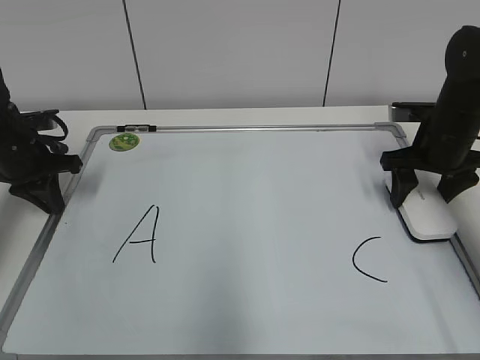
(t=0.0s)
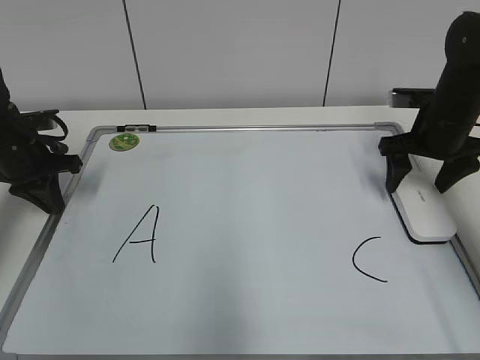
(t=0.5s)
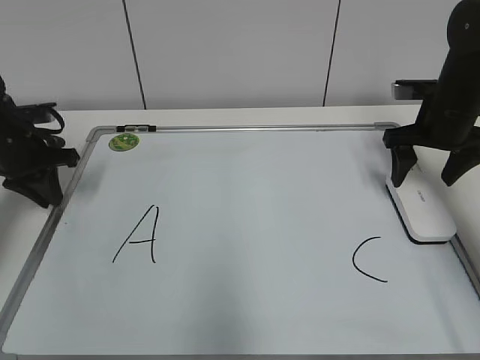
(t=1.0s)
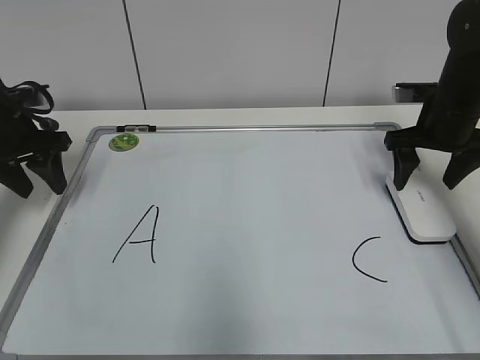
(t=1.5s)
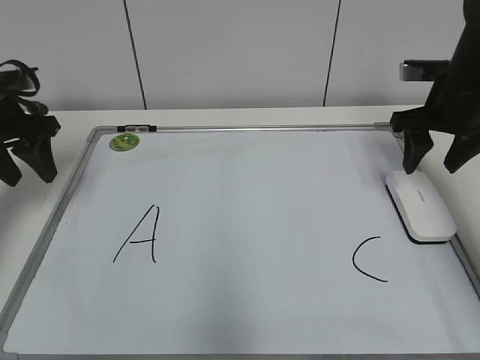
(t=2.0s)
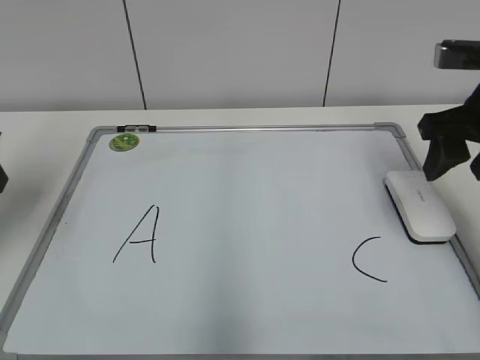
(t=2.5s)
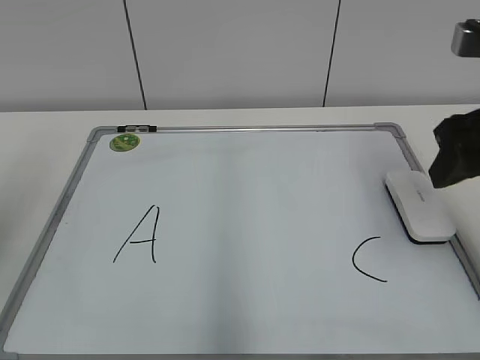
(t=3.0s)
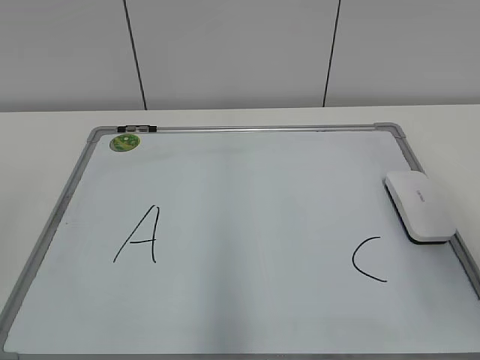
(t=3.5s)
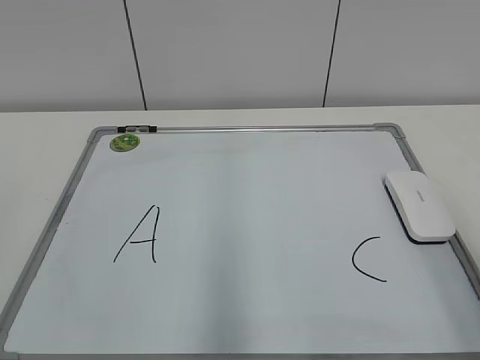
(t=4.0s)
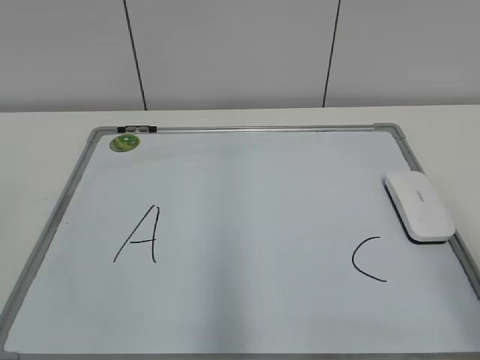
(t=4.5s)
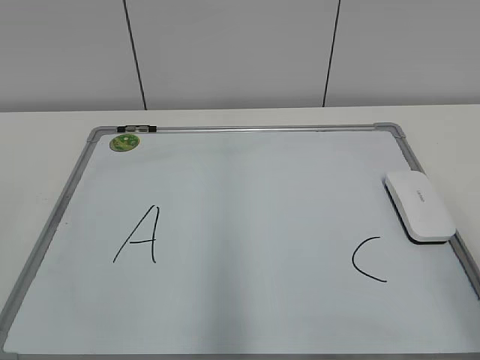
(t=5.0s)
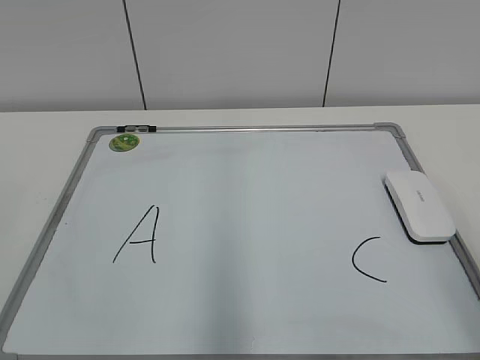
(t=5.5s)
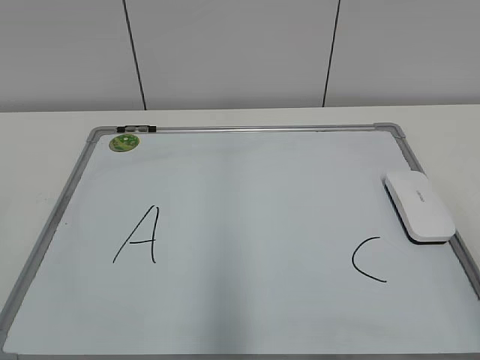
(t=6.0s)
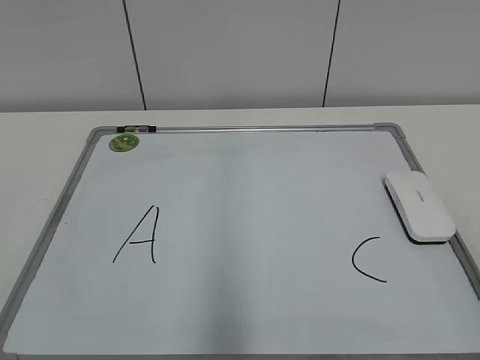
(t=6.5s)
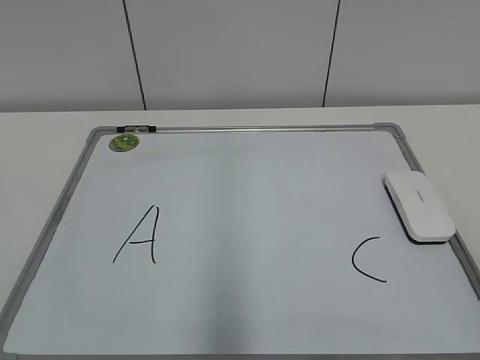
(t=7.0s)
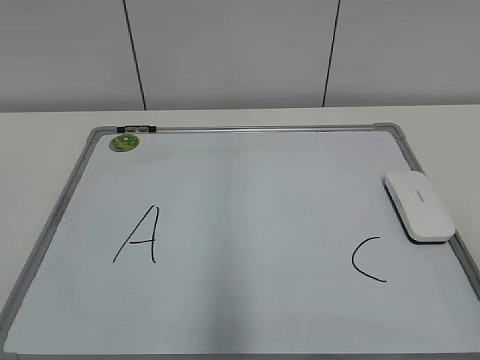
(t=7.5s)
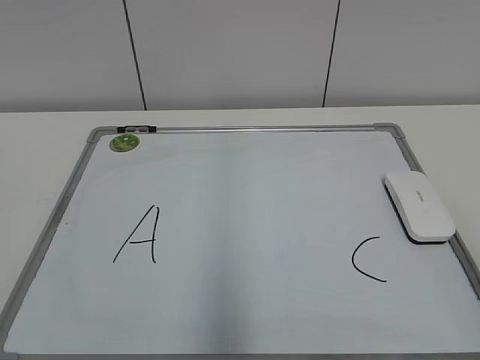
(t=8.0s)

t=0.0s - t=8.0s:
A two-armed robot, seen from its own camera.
Task of the whole recording: pick up the eraser on the blackboard and erase the letter "B".
t=0.0s - t=2.0s: The right gripper opens, then closes once more. Meanwhile the left gripper heads upward, covering roughly 5 cm, and opens its fingers.
t=2.0s - t=4.0s: The two grippers go roughly 35 cm backward.

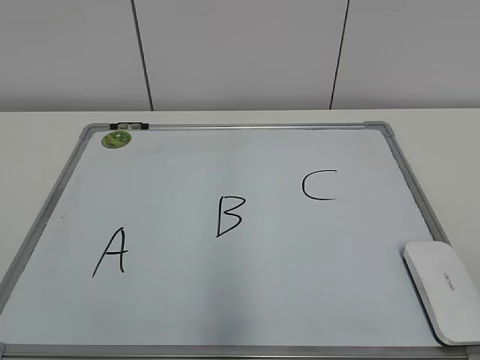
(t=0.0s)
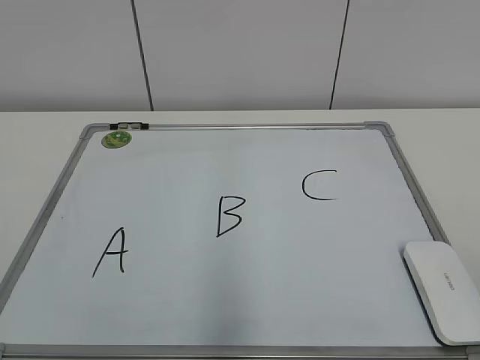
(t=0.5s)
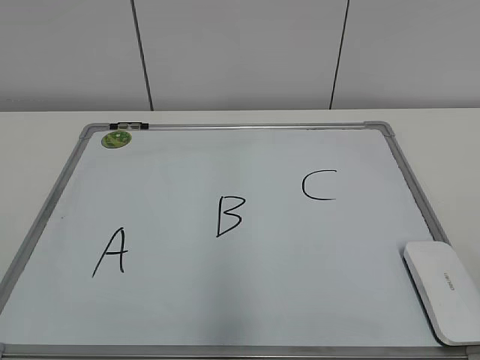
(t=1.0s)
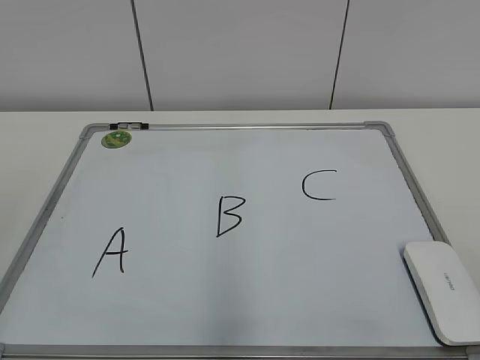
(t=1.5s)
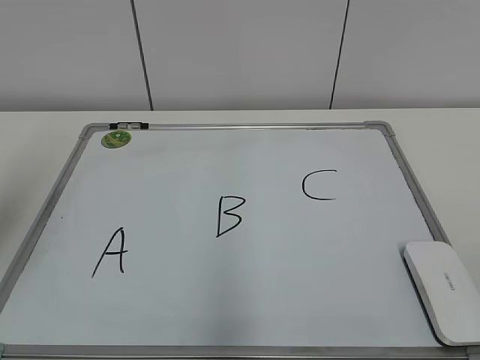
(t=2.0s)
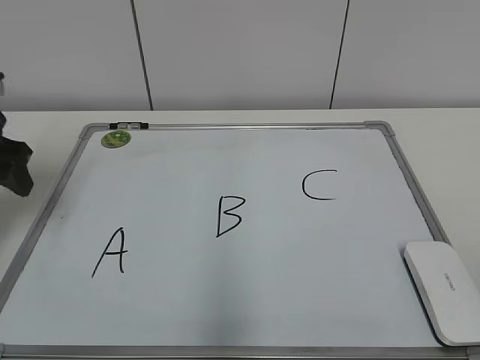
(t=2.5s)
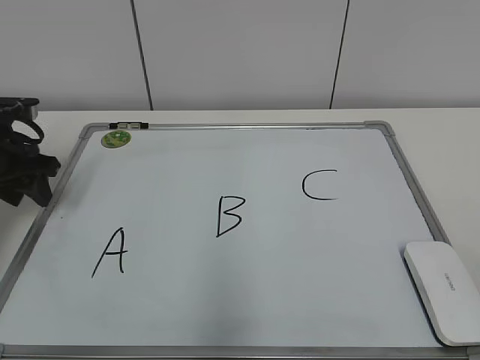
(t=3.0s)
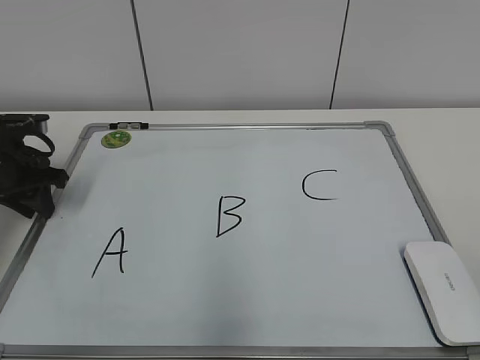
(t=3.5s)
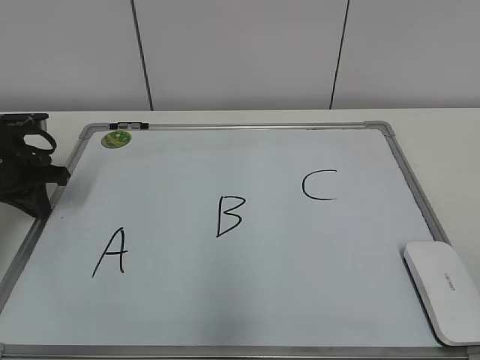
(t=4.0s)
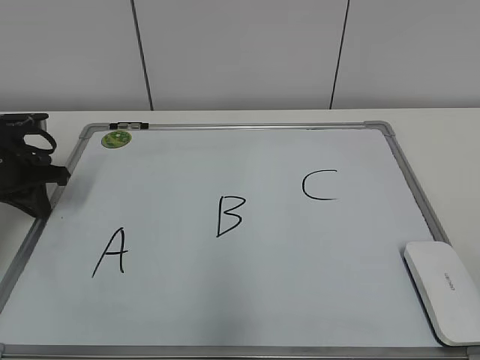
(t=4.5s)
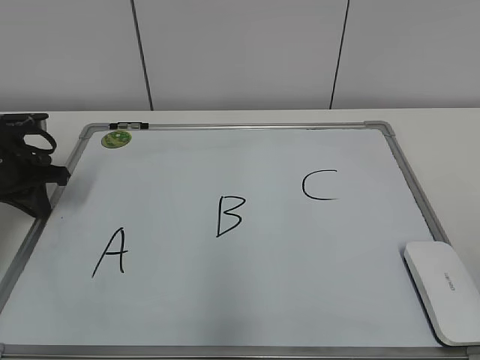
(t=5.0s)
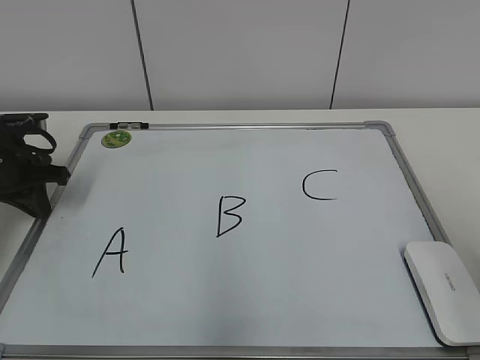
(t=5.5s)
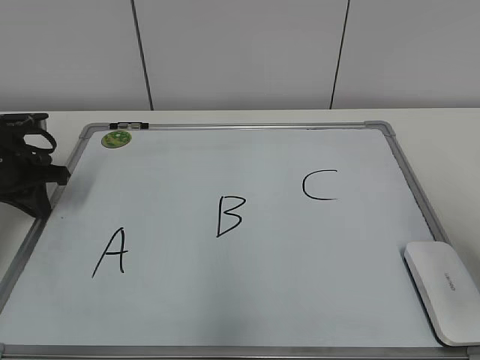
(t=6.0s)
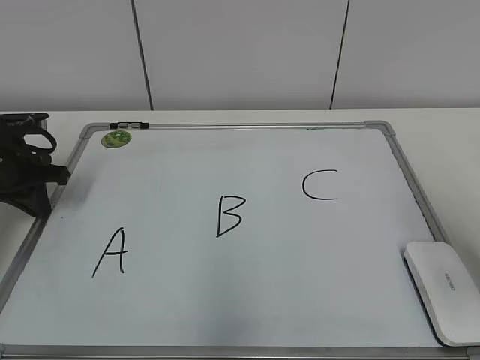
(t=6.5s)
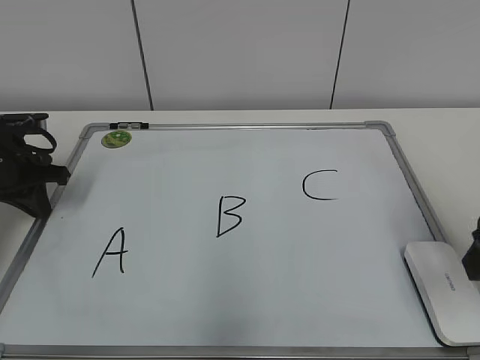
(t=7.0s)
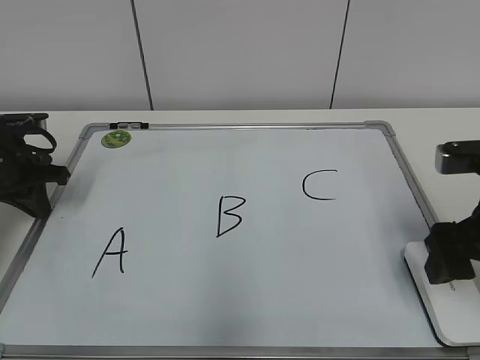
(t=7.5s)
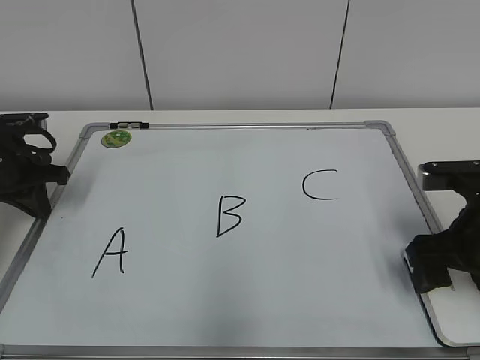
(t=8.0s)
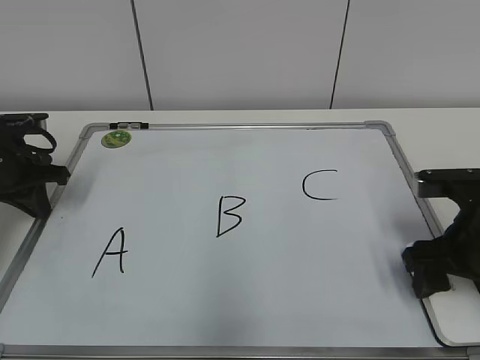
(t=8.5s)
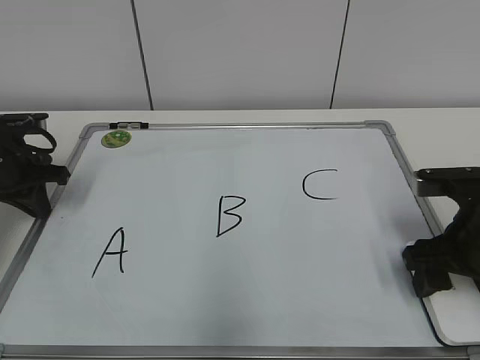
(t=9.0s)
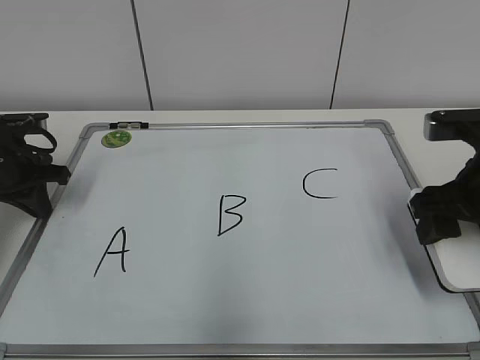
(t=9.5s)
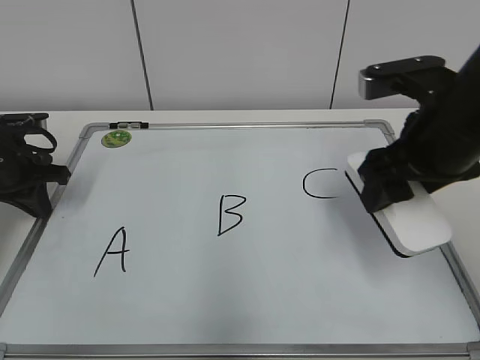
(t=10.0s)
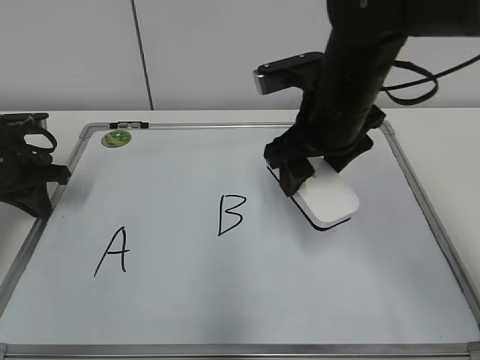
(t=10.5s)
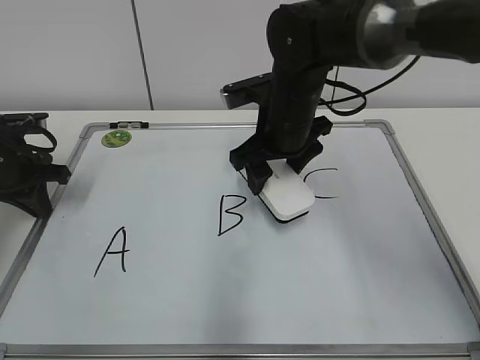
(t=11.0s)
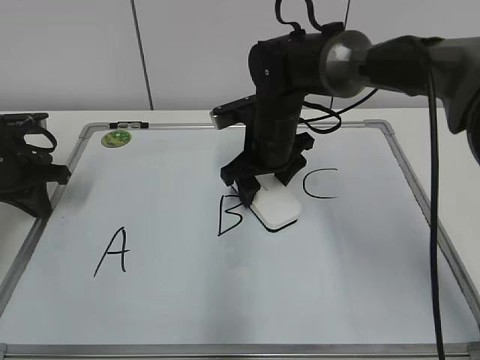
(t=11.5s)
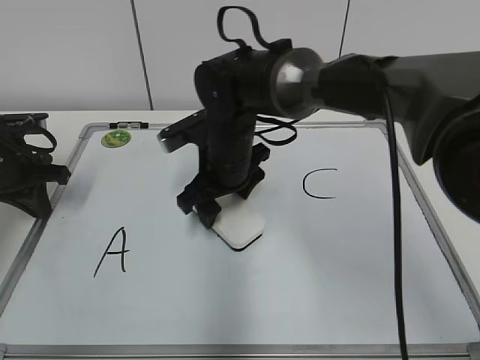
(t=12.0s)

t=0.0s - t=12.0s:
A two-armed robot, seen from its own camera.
Task of the whole recording: pick up the eraser on the blackboard and erase the letter "B".
Step, t=0.0s - t=3.5s: Hold the drawing board steady with your left hand.
Step, t=4.0s - t=9.0s: Grab the eraser with your right hand.
t=2.0s - t=4.0s: The left gripper goes roughly 25 cm downward and forward, and closes its fingers.
t=4.0s - t=6.0s: The right gripper heads forward, covering some 15 cm.
t=6.0s - t=8.0s: The right gripper heads downward and forward, covering some 15 cm, and opens its fingers.
t=8.0s - t=10.0s: The right gripper moves upward and to the left, roughly 10 cm, and closes.
t=10.0s - t=12.0s: The right gripper heads to the left, forward and downward, covering approximately 25 cm.

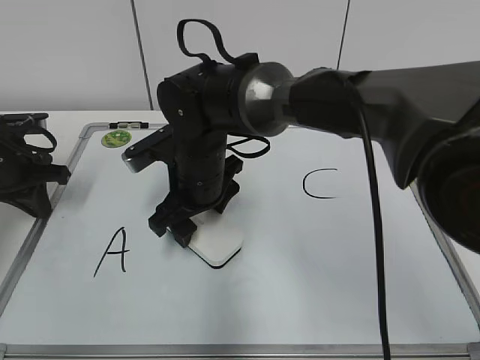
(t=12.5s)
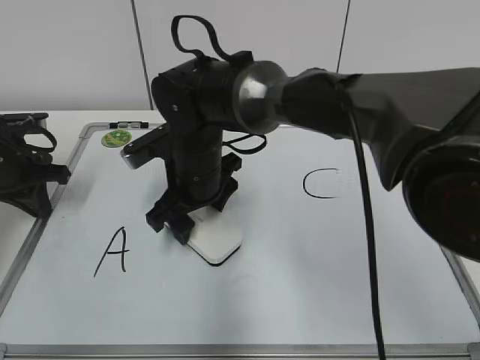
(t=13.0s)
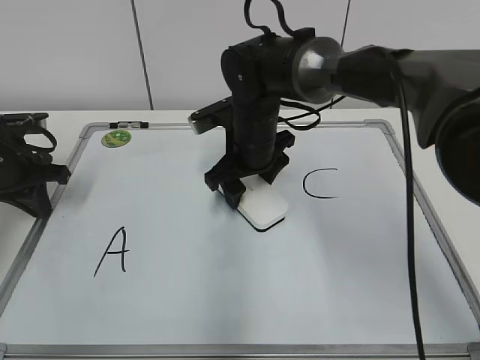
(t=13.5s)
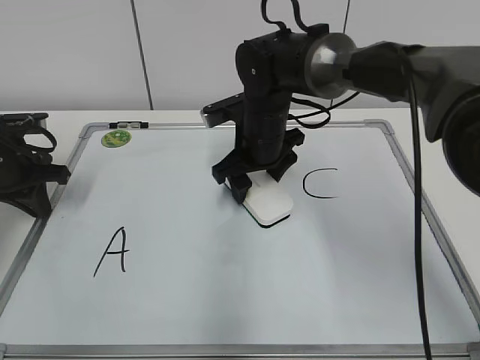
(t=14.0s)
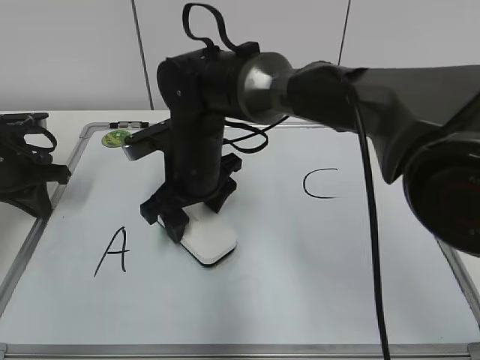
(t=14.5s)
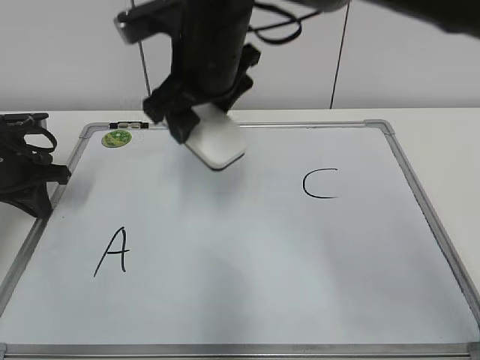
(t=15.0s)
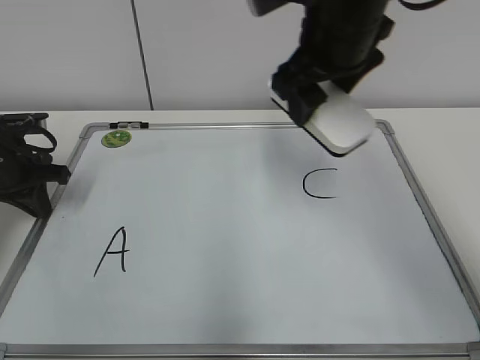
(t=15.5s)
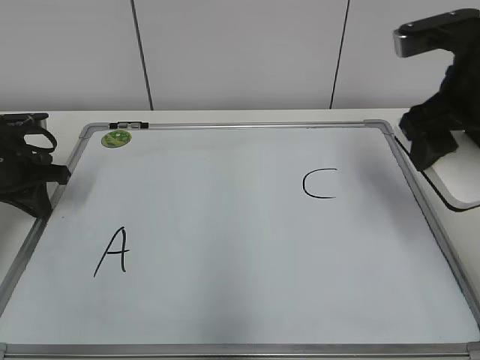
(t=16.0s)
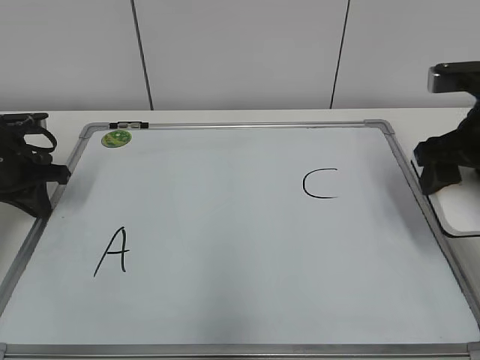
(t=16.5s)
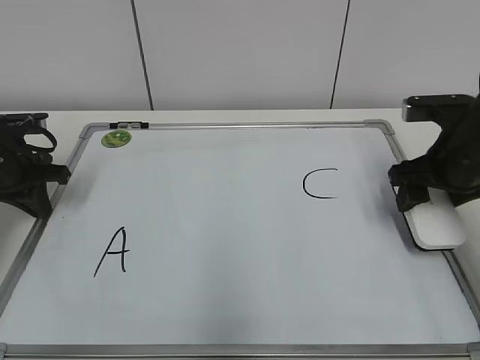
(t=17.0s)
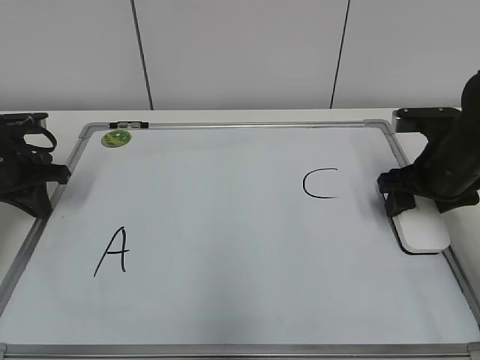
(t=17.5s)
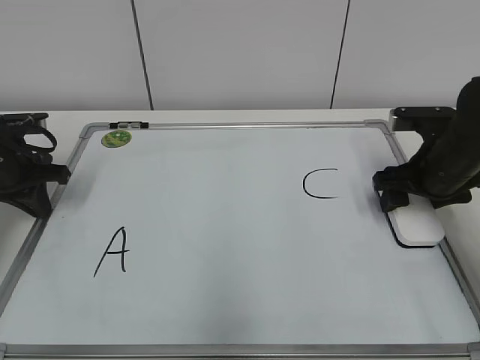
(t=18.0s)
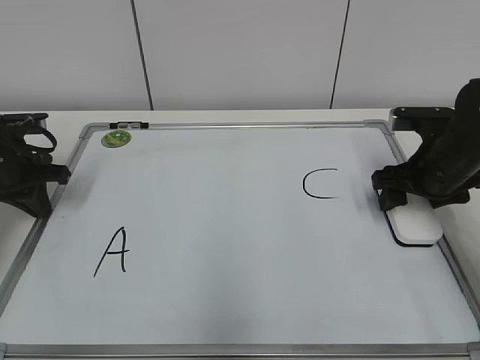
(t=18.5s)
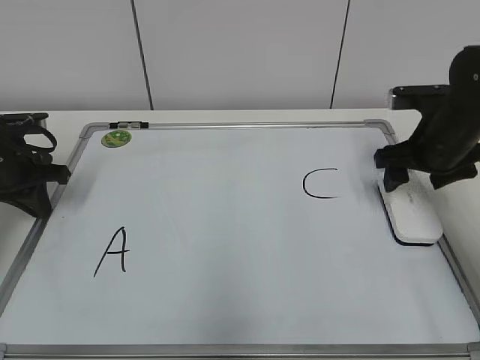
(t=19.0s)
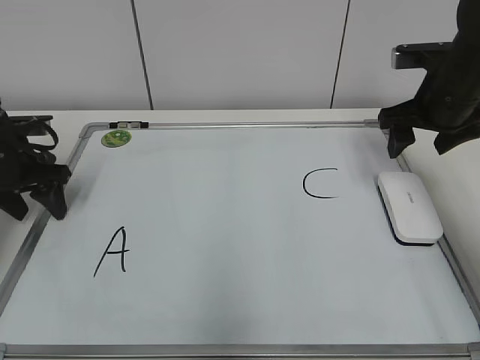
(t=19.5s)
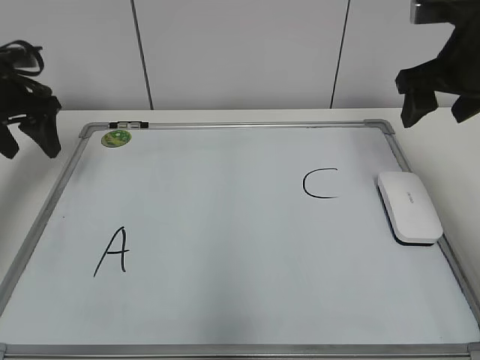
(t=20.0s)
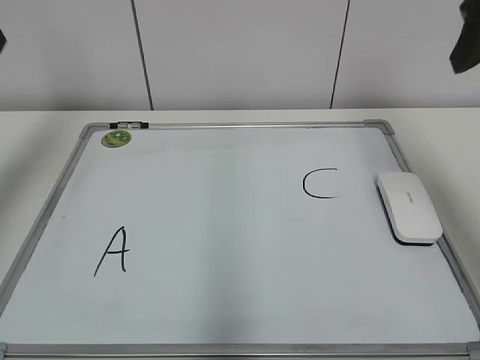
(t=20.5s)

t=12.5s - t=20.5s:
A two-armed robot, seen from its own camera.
Task of the whole recording: pick up the eraser on the blackboard and erase the letter "B".
Step, t=14.5s - t=18.5s: Put down the eraser with your right hand.
t=12.5s - t=14.5s: The right gripper reaches about 10 cm to the right, then returns.
t=14.5s - t=16.5s: The right gripper heads to the right, covering roughly 30 cm.
t=16.5s - t=18.5s: The right gripper goes about 10 cm downward.
t=18.5s - t=20.5s: The two grippers go about 25 cm upward. The right gripper opens up, while the left gripper opens up.
